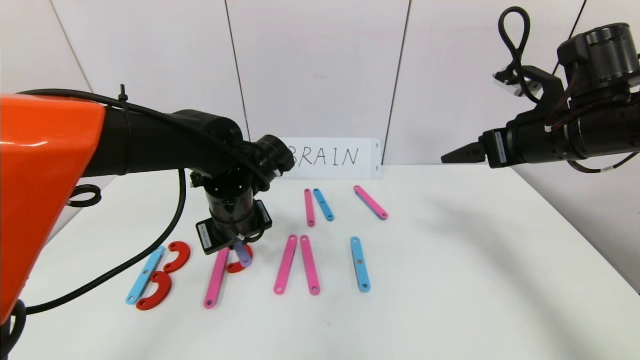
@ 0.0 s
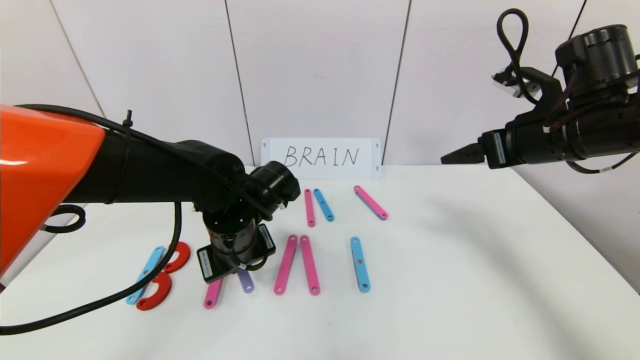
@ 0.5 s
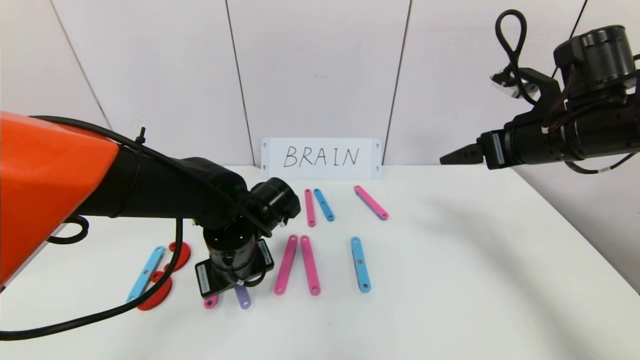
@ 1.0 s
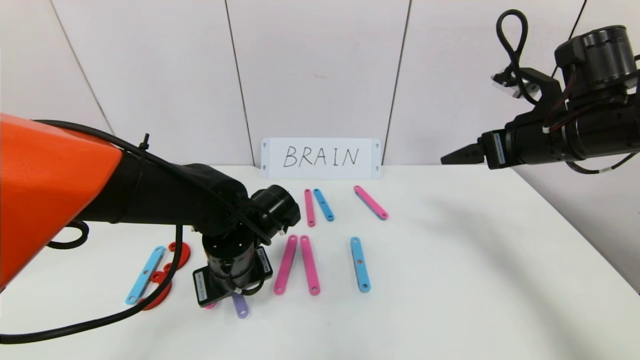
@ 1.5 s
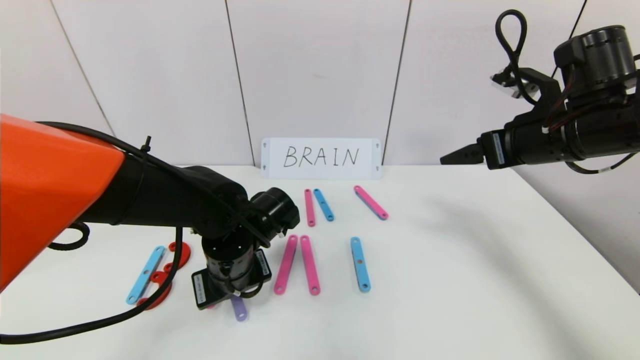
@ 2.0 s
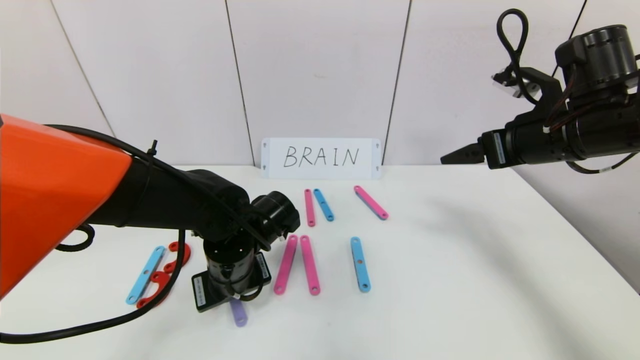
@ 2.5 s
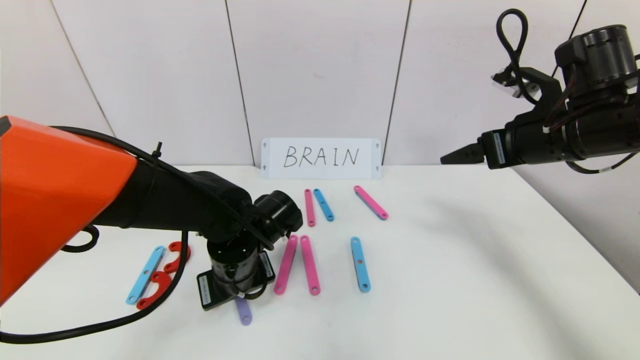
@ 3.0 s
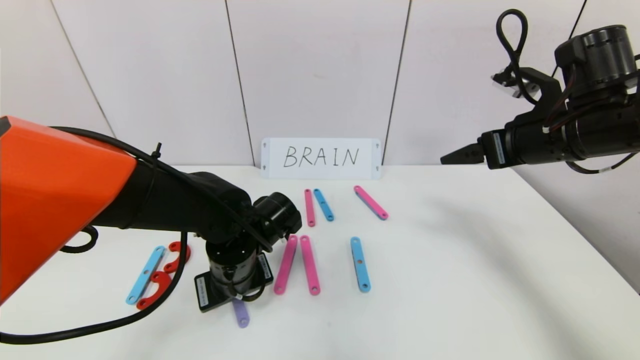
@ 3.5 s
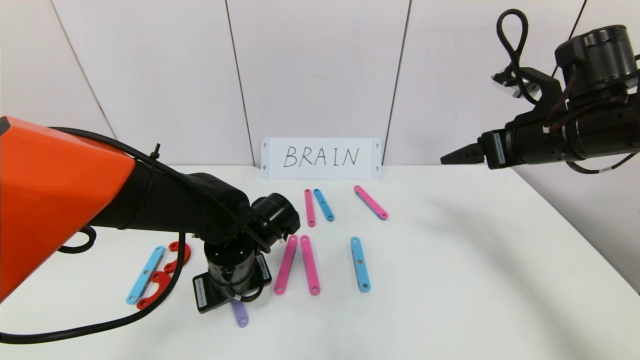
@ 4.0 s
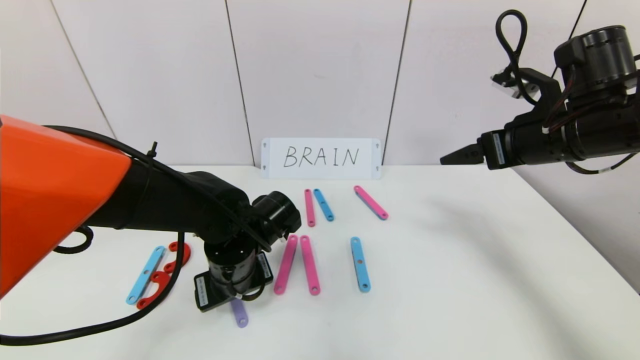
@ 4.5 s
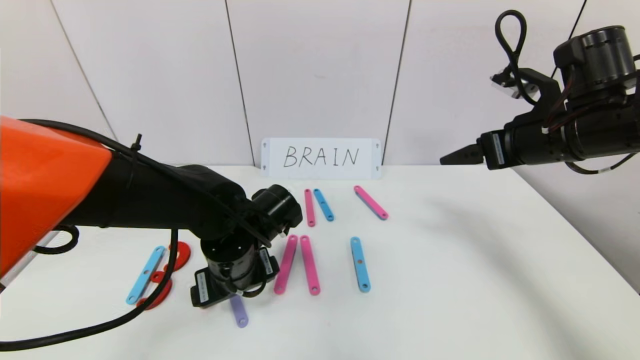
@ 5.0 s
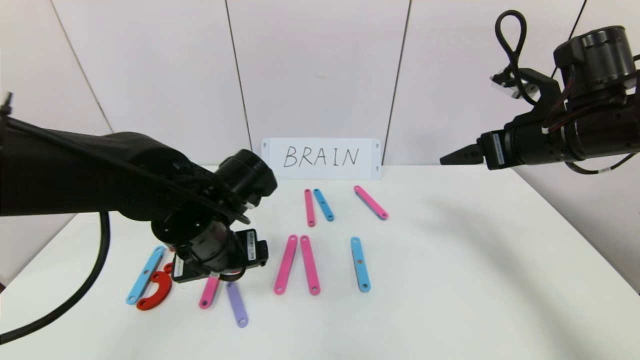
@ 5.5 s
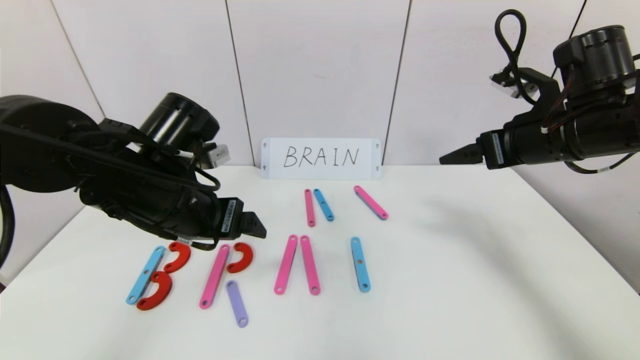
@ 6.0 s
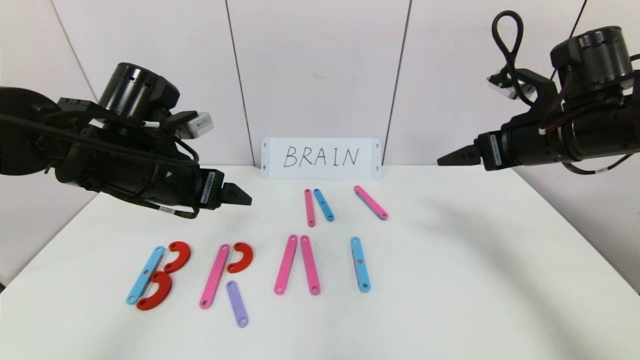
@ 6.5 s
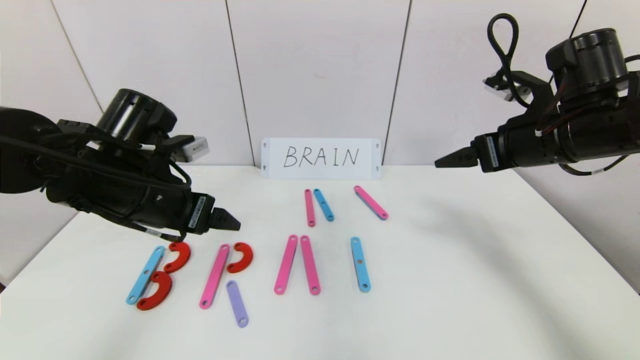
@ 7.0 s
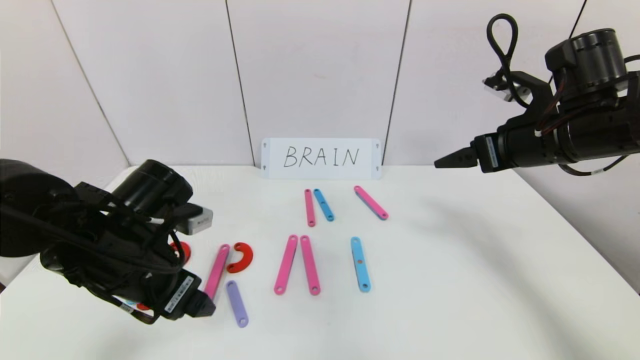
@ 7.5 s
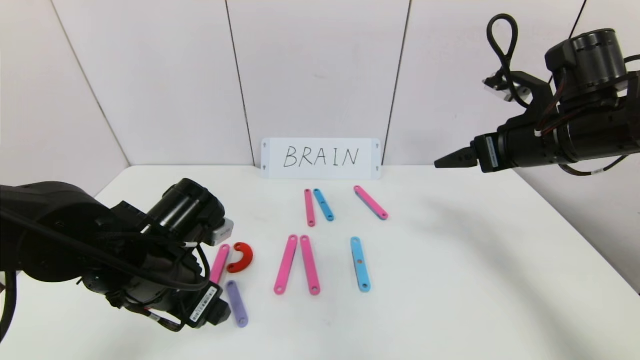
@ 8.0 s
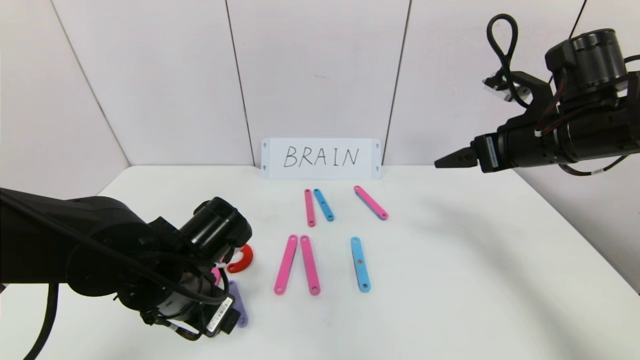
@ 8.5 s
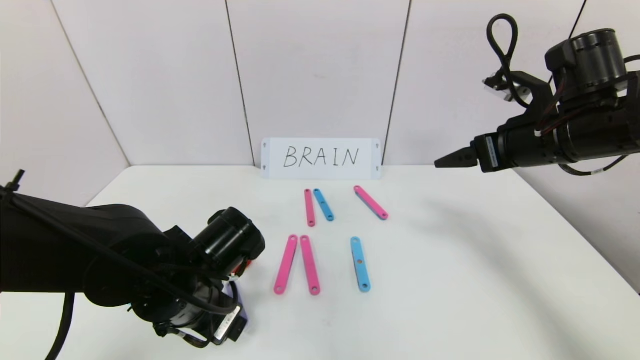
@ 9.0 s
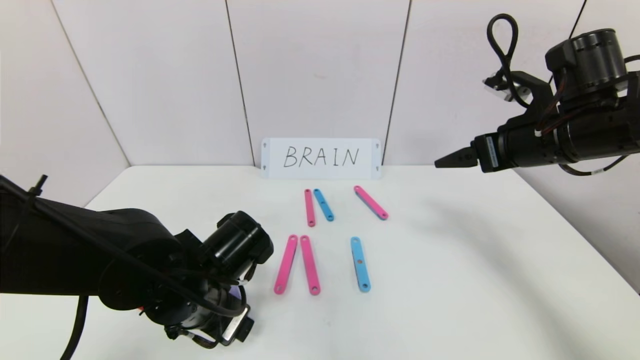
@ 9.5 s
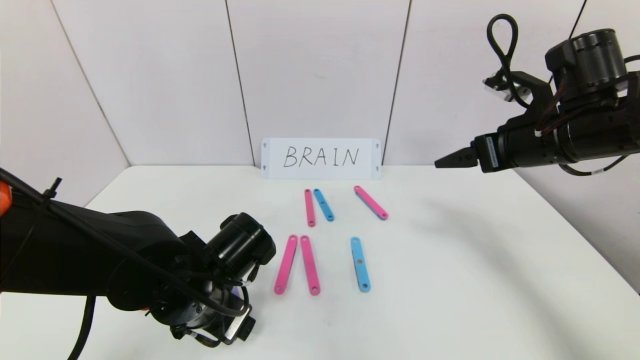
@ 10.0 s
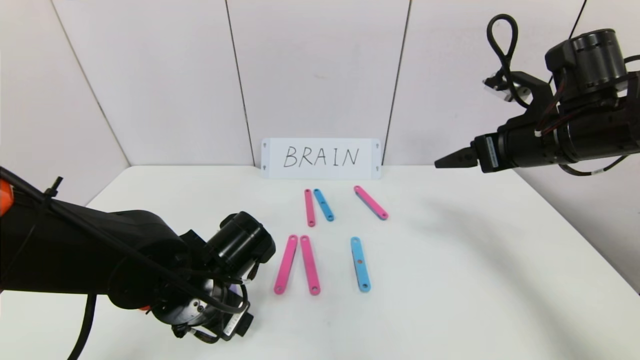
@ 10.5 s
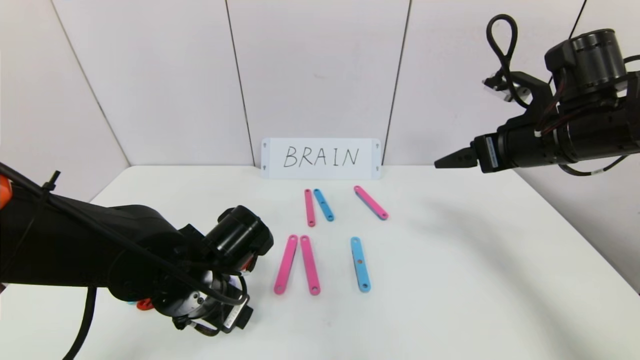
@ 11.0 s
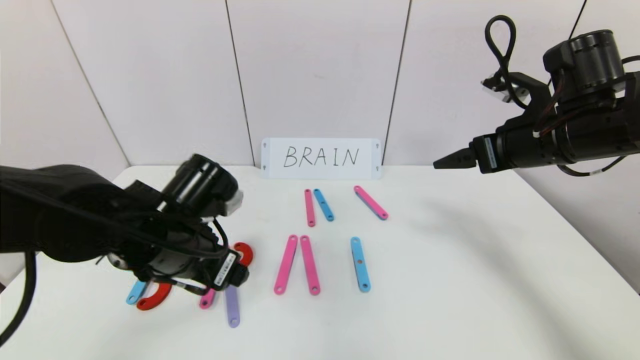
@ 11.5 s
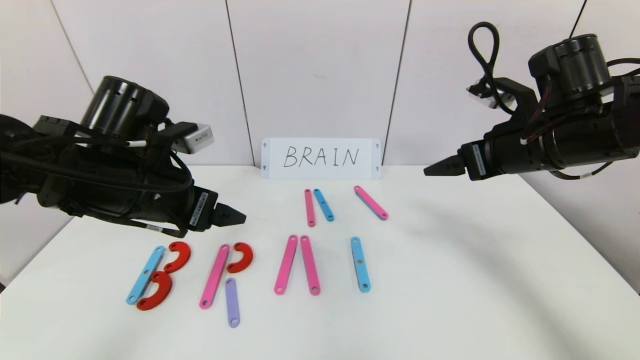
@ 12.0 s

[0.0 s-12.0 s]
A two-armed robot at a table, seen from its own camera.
Task of the whole recording: rearrange the word baai as brain.
Step, 0.0 to 11.5 s: Place the character R between first character B and third character A.
0.0 to 2.0 s: The left gripper heads downward, covering about 5 cm.
2.0 to 4.0 s: The two grippers keep their place.
4.0 to 6.0 s: The left gripper goes some 15 cm upward and to the left, and opens.
6.0 to 8.0 s: The left gripper goes approximately 10 cm downward.
8.0 to 10.0 s: The left gripper shifts by approximately 5 cm.
10.0 to 12.0 s: The left gripper is displaced upward and to the left by about 15 cm.

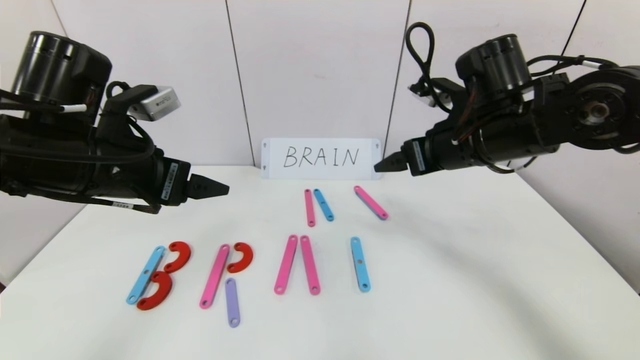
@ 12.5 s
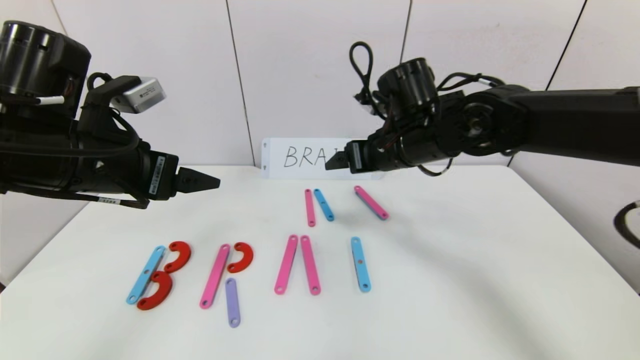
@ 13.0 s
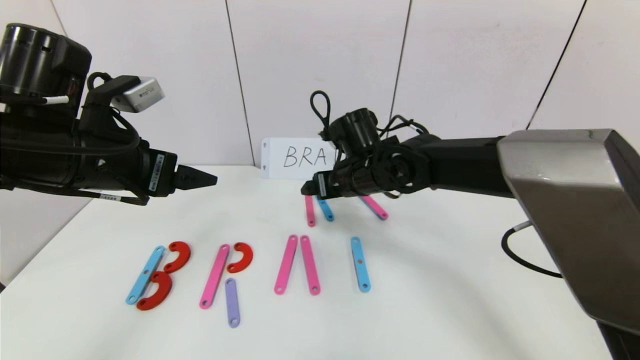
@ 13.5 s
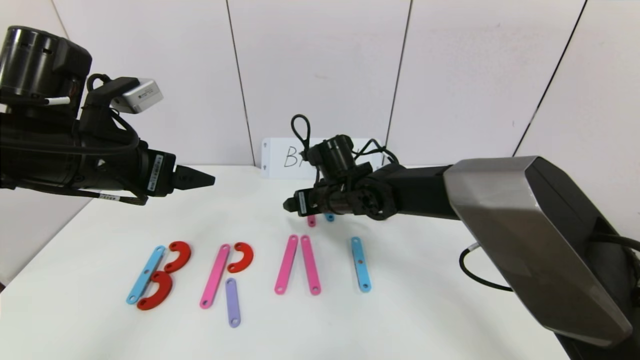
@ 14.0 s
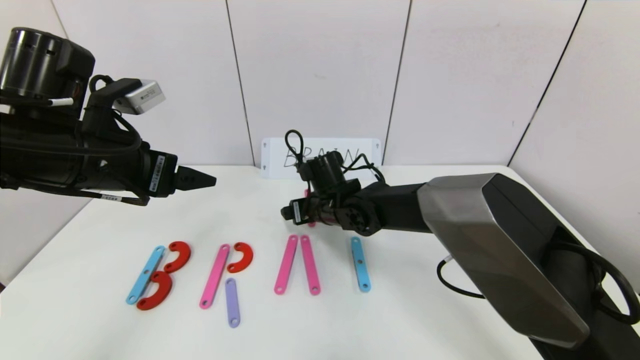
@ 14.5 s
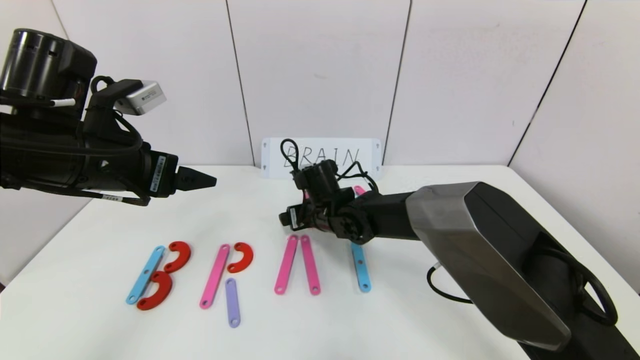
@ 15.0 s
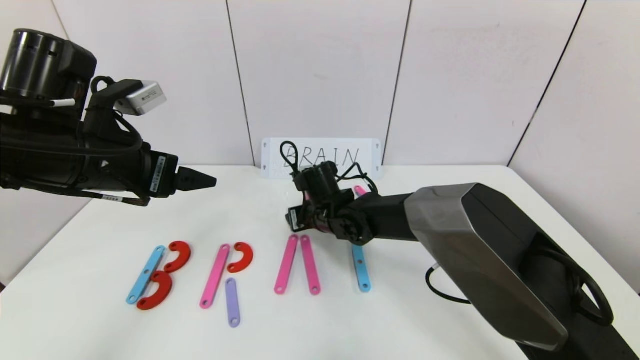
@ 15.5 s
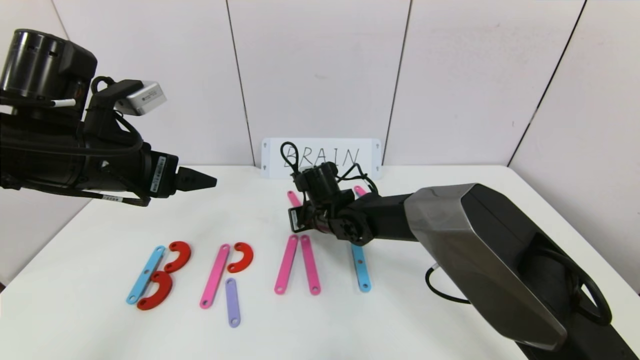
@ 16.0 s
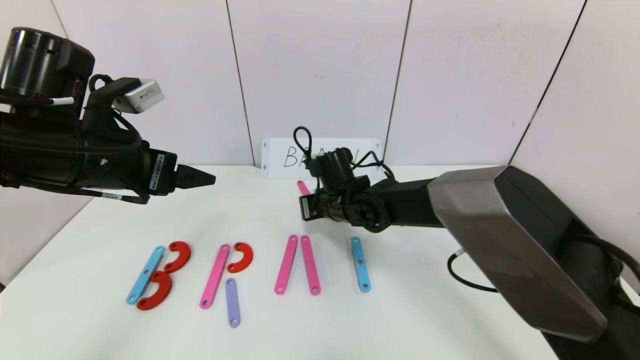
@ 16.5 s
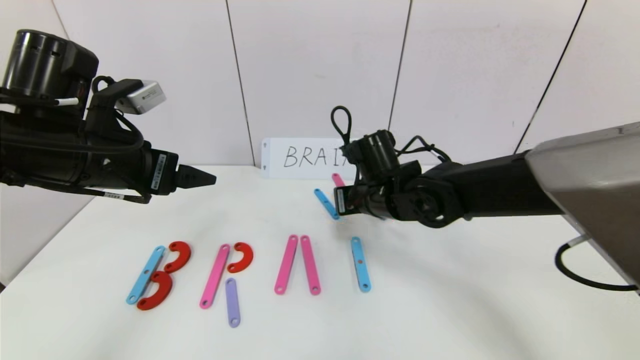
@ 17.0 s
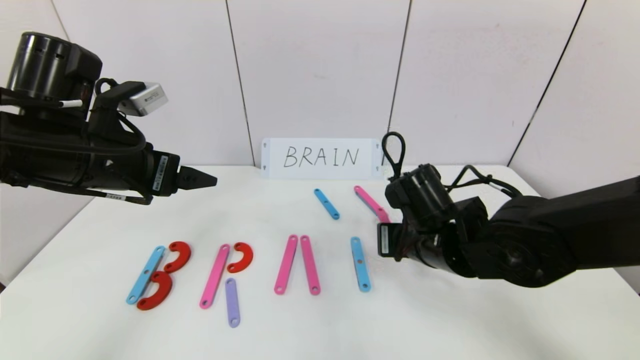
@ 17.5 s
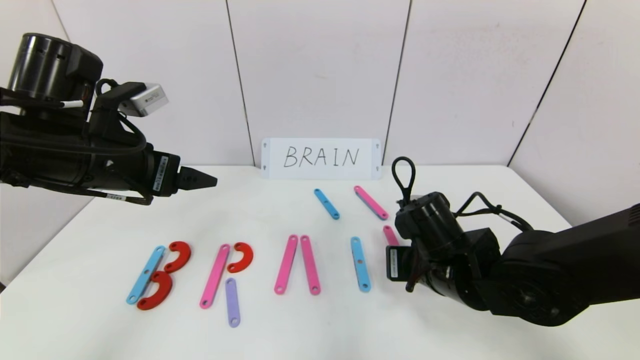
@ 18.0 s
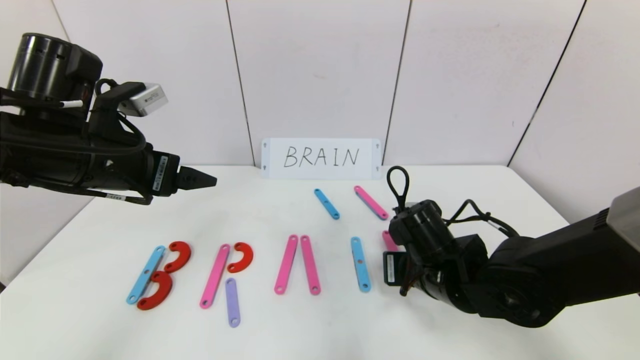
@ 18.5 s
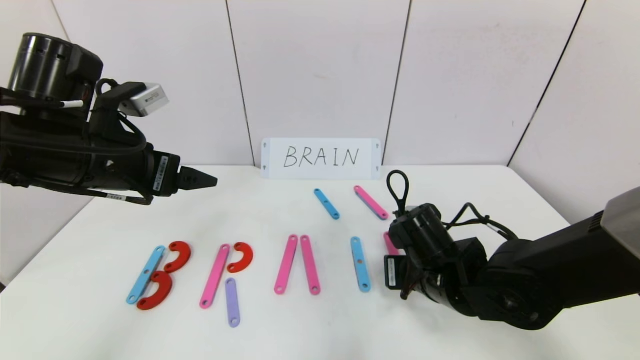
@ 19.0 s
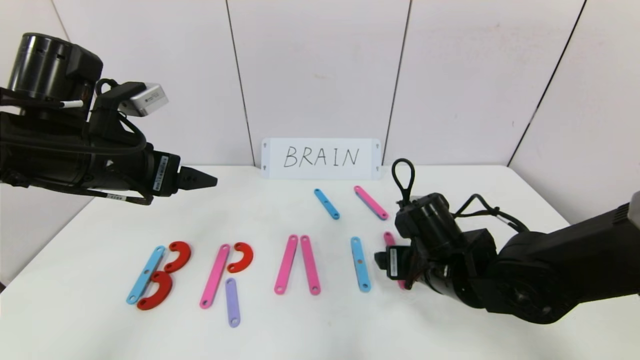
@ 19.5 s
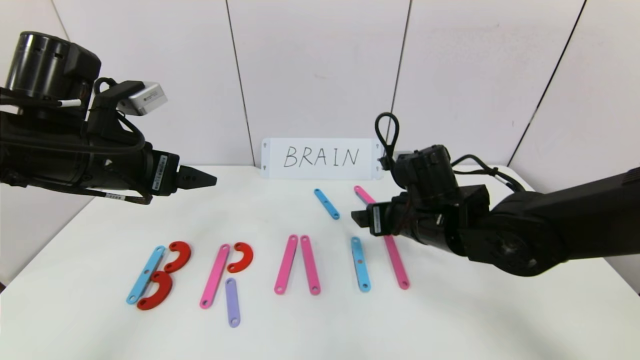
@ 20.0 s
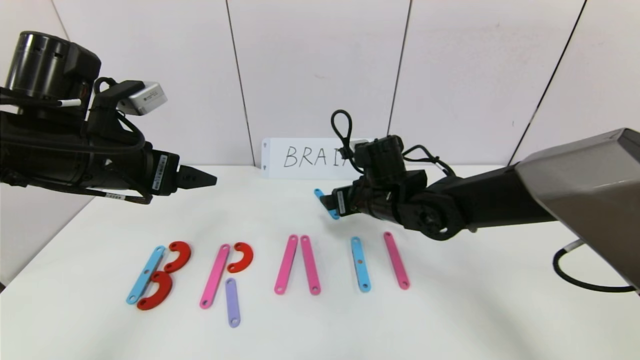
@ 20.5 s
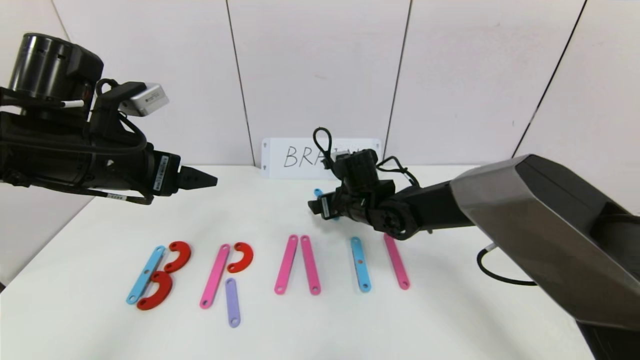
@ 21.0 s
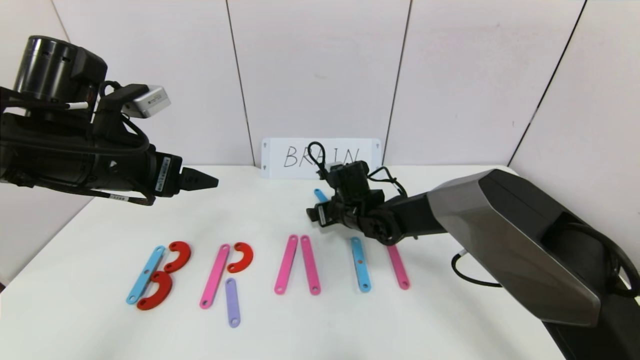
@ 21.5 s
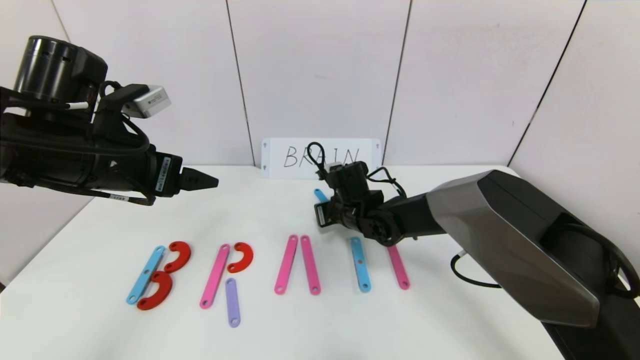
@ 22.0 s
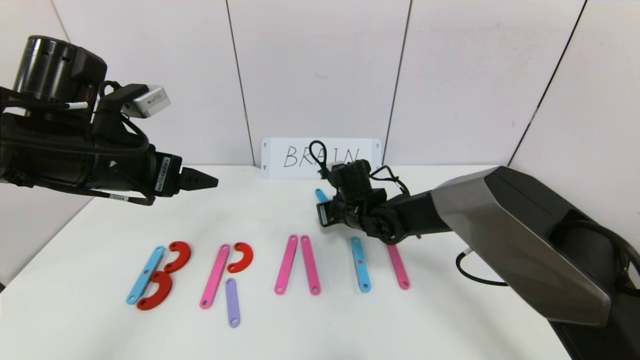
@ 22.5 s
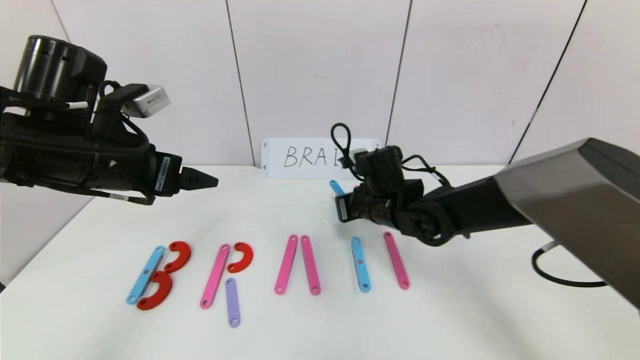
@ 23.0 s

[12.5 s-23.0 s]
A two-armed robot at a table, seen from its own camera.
Task of the whole recording: rearrange the word baai as brain.
12.5 to 14.5 s: The right gripper moves to the left and downward, approximately 25 cm.
14.5 to 16.5 s: The right gripper closes.
16.5 to 19.0 s: The right gripper travels backward and to the right by some 20 cm.
19.0 to 21.0 s: The right gripper goes about 15 cm forward and to the left, and opens.
21.0 to 23.0 s: The right gripper ends up about 5 cm from where it was, and closes up.
